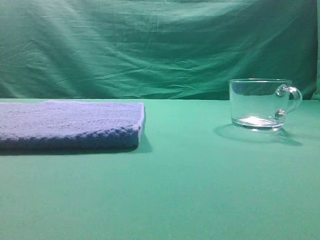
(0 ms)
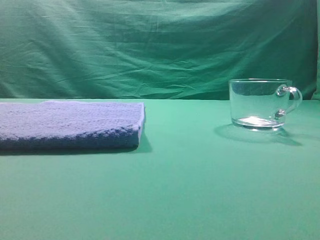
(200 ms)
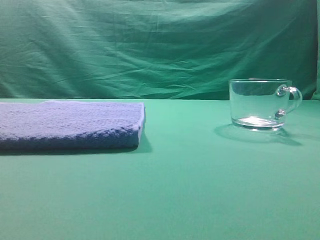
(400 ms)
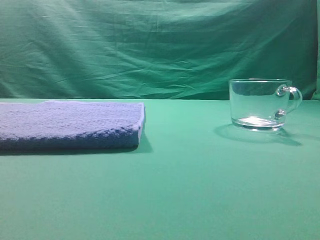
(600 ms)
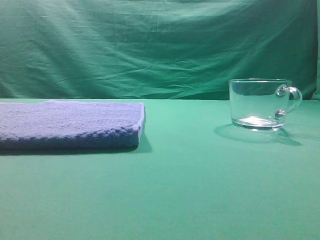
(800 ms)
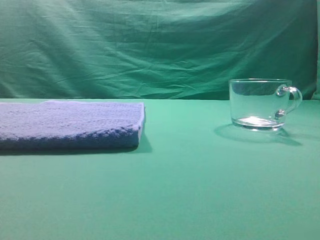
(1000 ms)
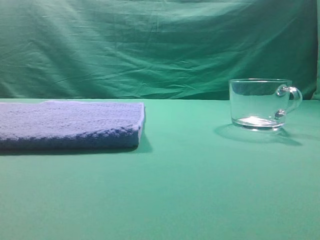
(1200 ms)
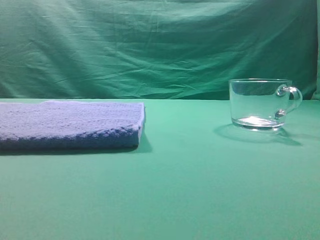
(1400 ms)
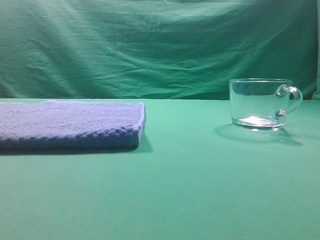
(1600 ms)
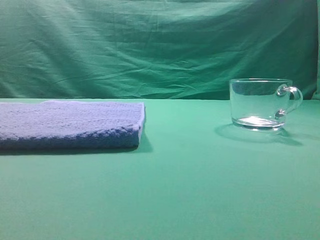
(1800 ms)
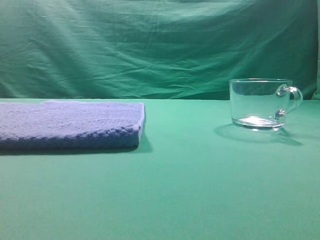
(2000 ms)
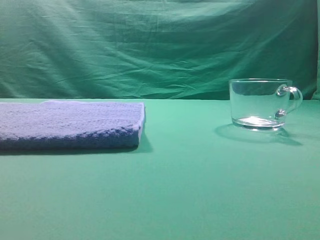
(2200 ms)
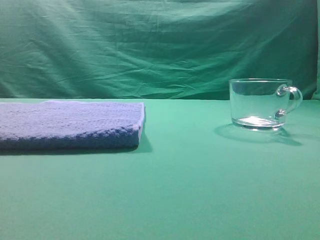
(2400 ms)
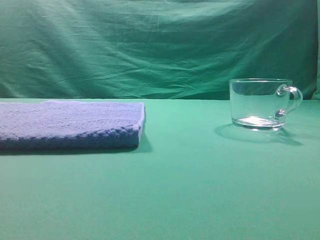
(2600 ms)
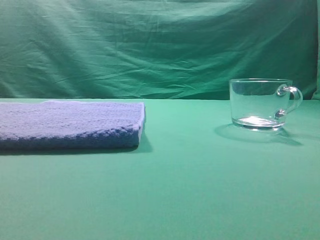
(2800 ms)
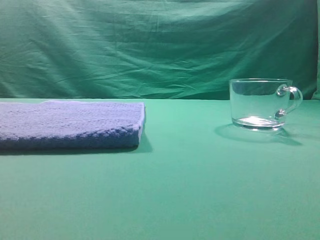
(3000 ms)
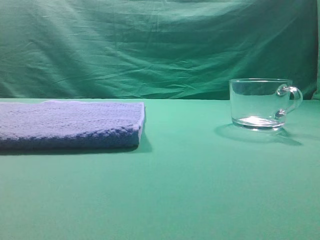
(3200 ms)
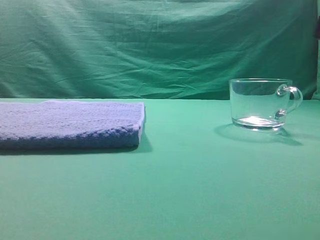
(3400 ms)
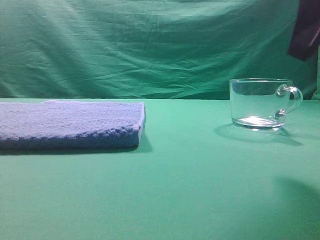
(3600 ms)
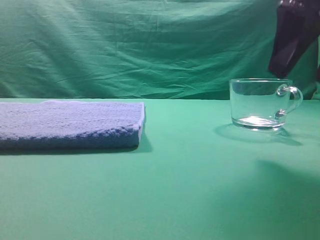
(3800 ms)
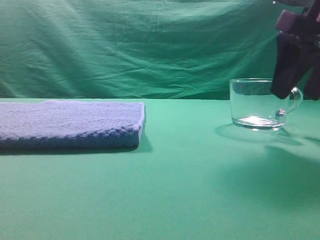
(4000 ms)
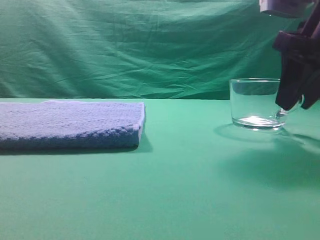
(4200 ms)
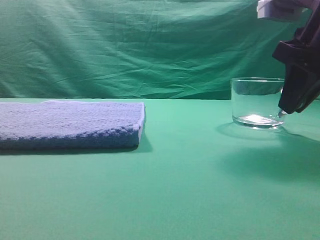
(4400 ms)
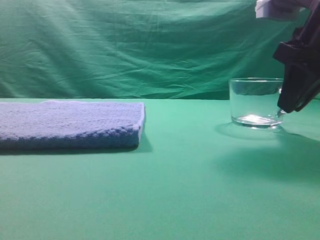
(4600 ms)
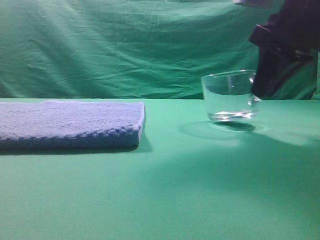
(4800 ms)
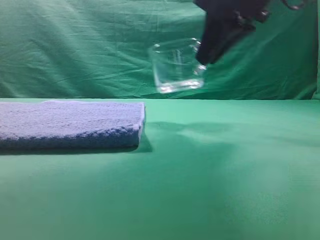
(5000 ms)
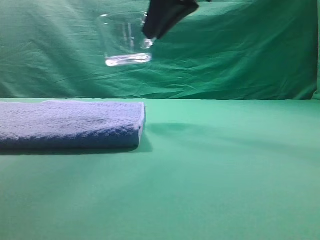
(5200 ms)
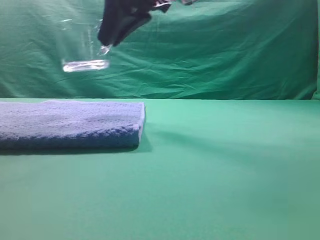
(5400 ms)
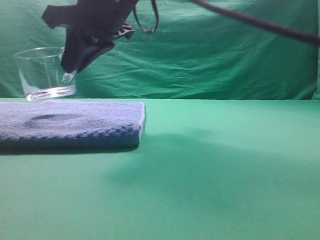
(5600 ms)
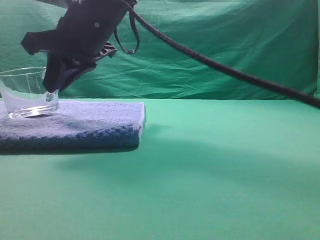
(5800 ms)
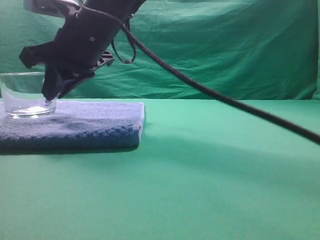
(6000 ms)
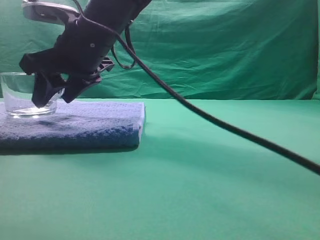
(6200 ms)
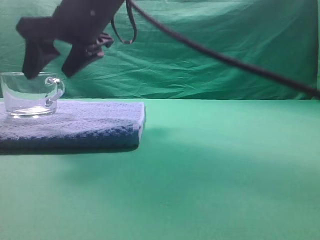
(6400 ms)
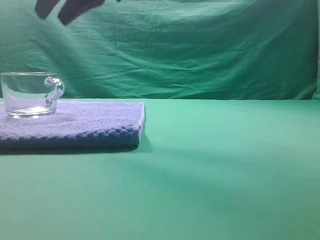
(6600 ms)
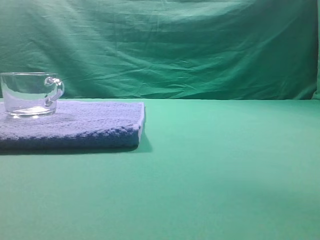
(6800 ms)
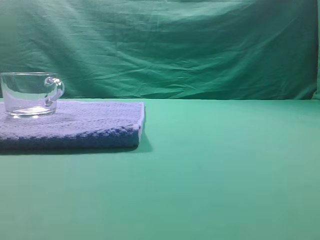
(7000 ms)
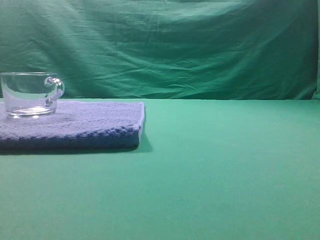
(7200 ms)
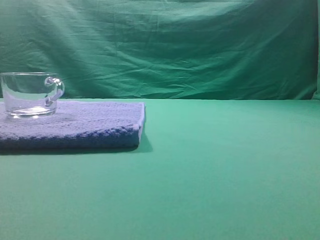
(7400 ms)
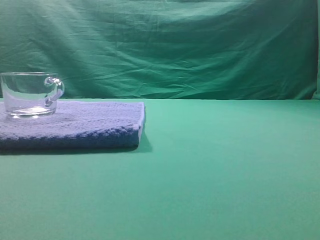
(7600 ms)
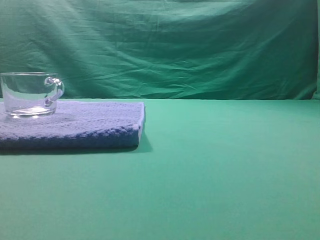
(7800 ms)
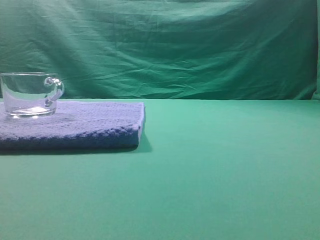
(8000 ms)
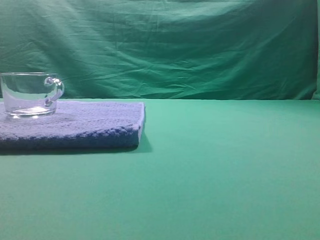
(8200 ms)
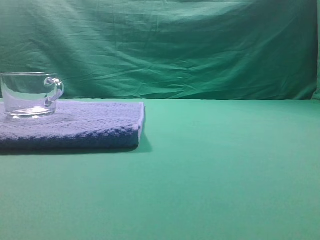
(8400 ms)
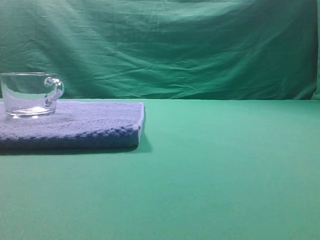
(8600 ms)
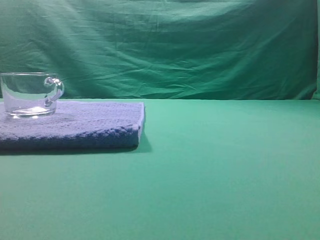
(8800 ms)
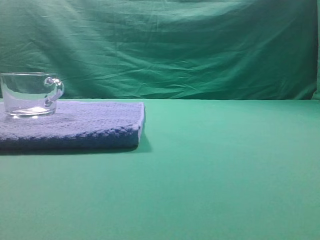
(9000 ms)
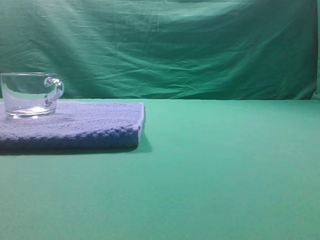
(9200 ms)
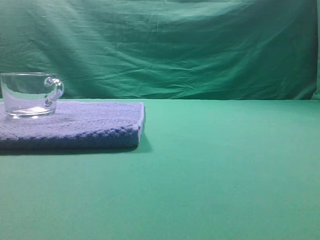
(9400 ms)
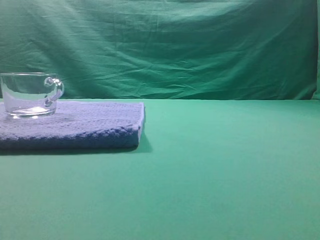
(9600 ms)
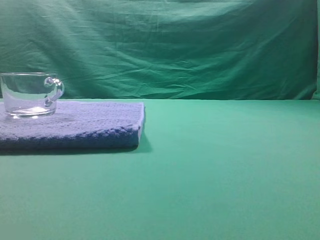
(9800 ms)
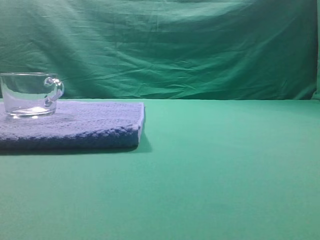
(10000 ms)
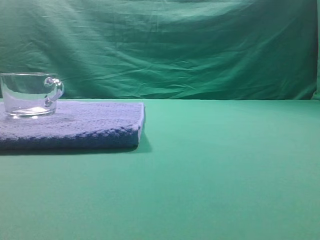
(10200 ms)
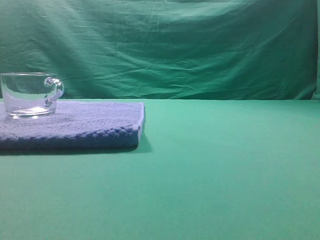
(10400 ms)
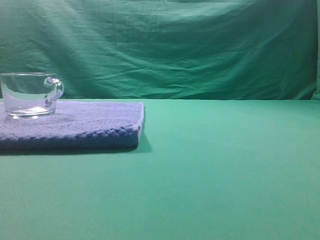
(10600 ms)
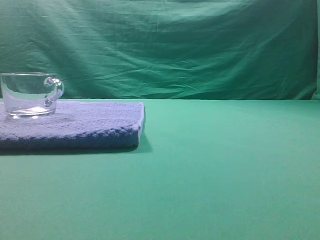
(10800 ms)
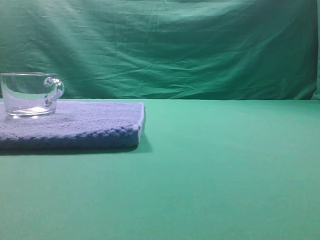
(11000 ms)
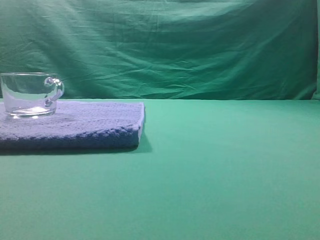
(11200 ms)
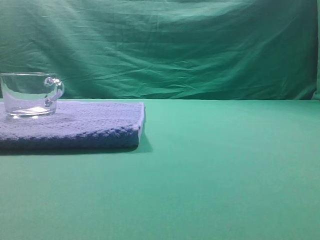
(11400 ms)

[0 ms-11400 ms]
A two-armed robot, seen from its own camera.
Task of the whole recording: grasp the transparent glass cup and place it within the blue towel.
Step, 0 ms to 4800 ms: Grasp the transparent glass cup.
Step, 5000 ms to 6200 ms: Place the glass cup on the blue zone.

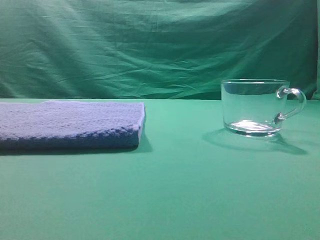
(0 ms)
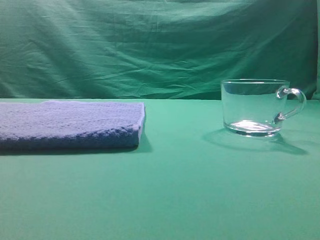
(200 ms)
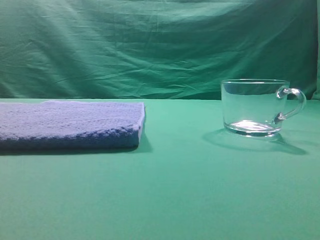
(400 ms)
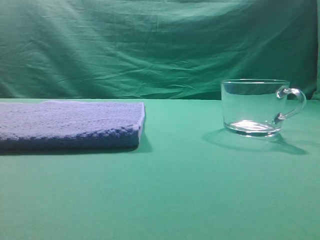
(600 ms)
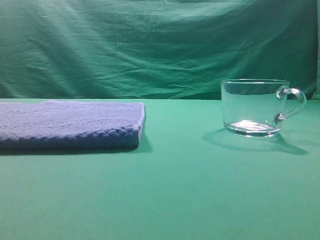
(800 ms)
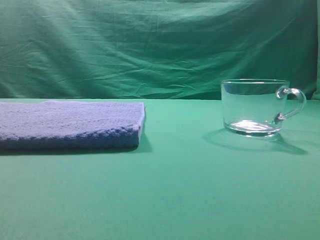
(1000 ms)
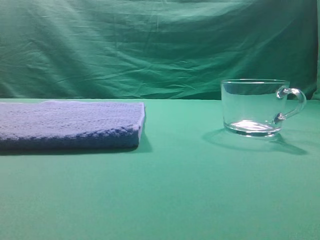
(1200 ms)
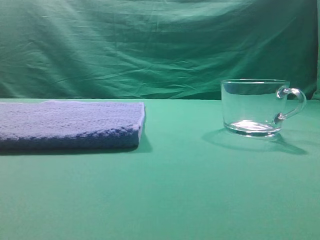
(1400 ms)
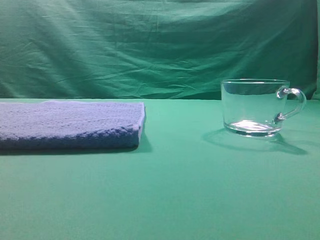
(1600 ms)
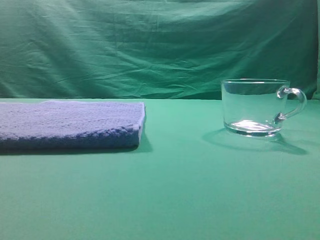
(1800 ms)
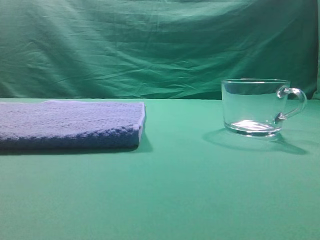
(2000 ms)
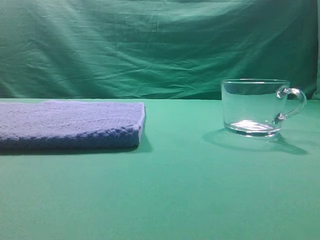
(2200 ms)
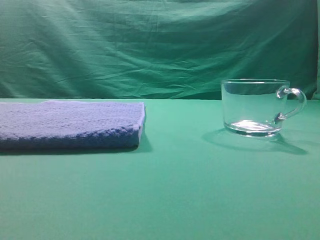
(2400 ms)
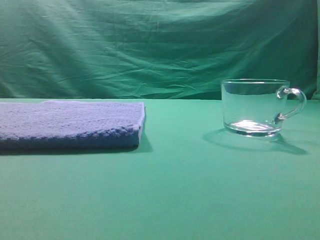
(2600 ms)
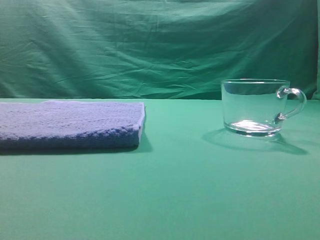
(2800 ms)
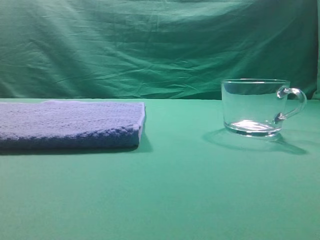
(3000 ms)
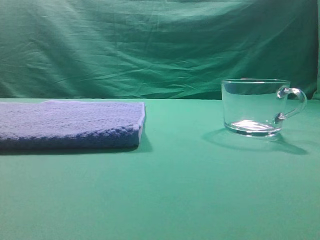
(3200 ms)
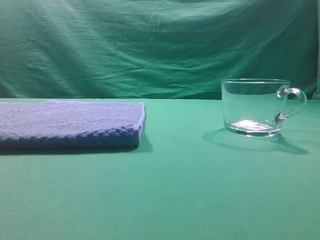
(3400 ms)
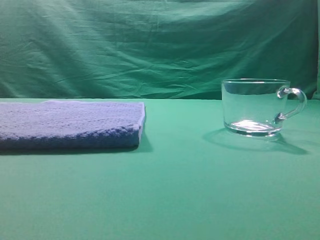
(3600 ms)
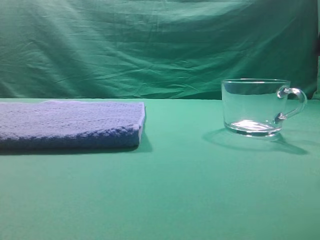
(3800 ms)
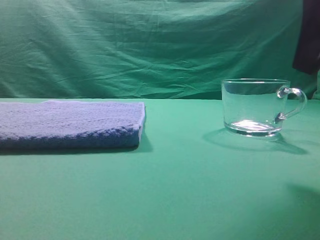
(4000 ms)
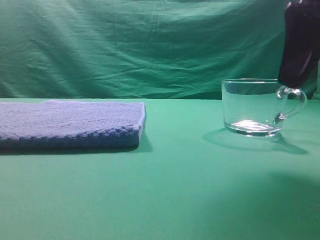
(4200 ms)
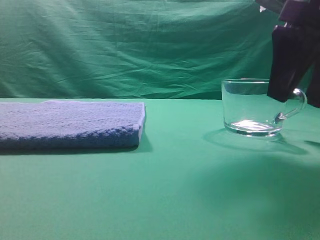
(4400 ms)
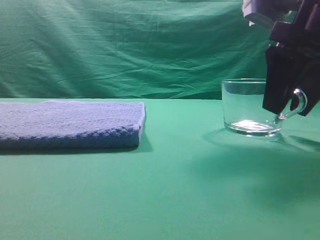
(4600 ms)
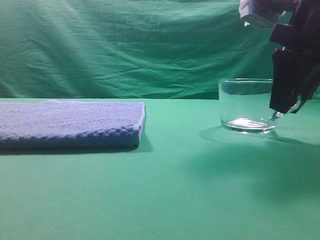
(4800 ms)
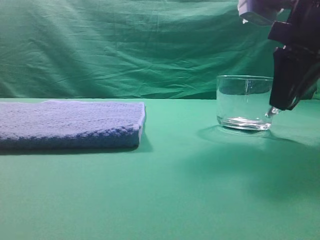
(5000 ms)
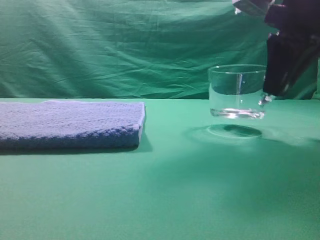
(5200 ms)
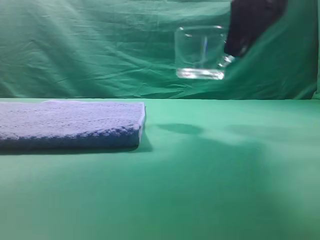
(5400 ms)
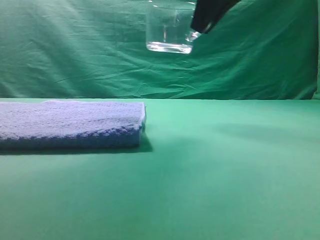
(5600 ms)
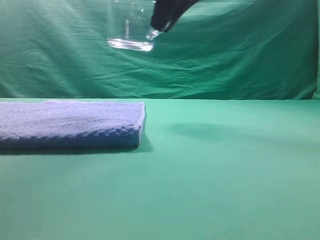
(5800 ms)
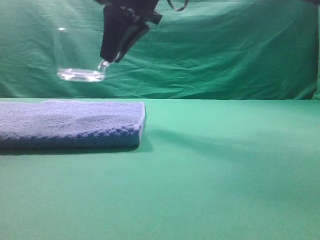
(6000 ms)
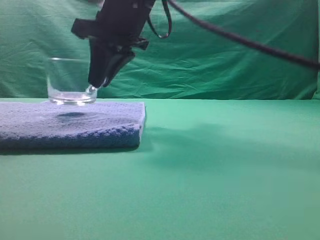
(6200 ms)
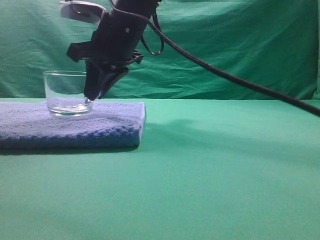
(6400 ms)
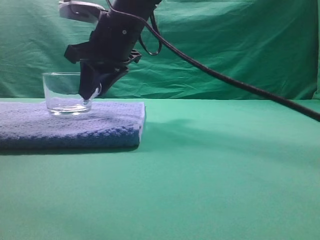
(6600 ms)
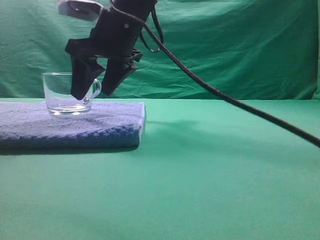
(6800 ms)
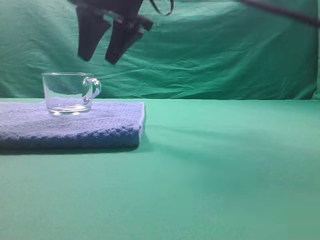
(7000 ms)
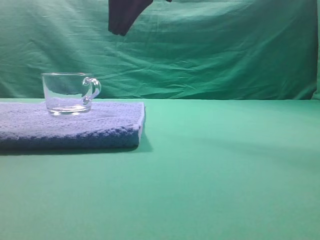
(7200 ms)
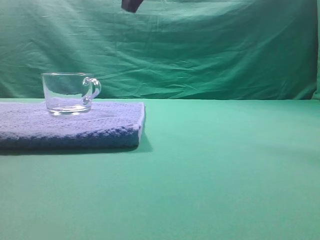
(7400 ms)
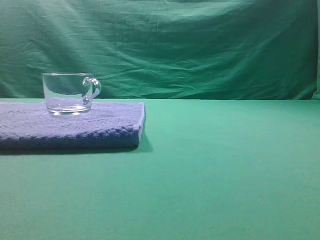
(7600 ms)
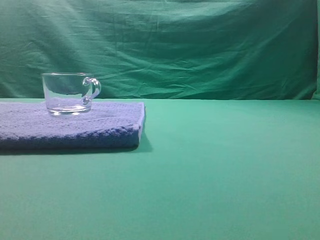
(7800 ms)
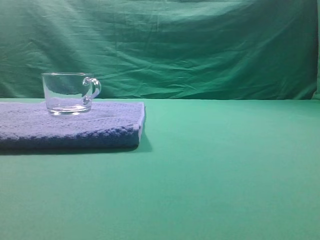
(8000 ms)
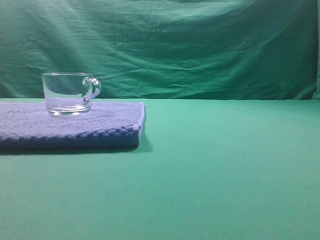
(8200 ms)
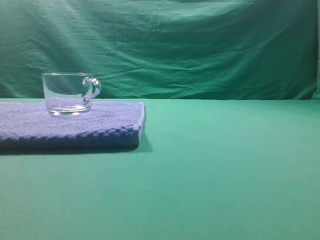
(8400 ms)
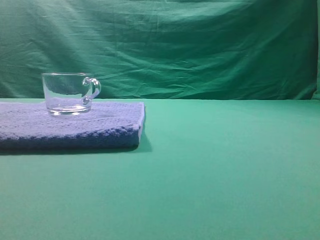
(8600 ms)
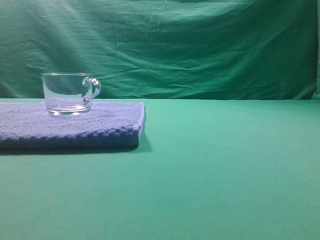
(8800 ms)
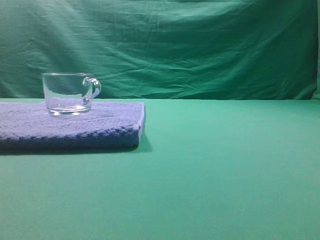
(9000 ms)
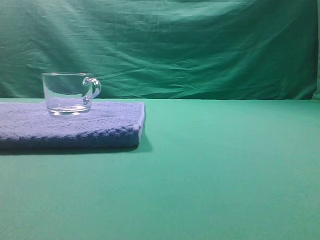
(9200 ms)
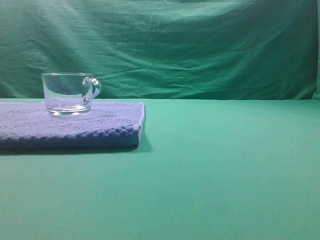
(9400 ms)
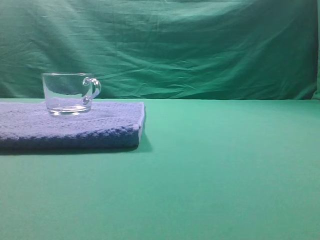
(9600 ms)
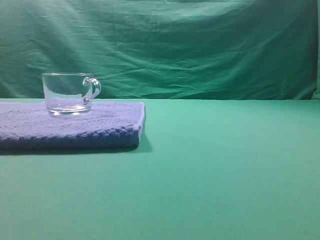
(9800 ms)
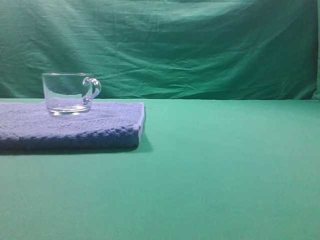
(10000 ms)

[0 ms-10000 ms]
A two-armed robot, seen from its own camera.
Task of the whole recording: grasp the transparent glass cup and place it within the blue towel.
Step, 0 ms to 5200 ms: Grasp the transparent glass cup.
Step, 5400 ms to 6800 ms: Place the glass cup on the blue zone.

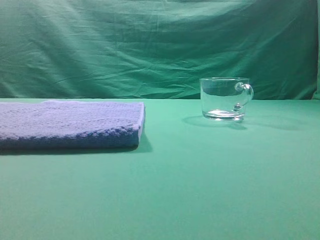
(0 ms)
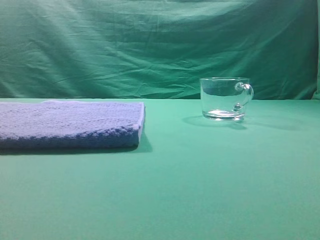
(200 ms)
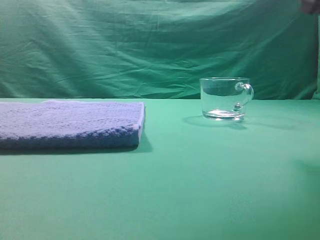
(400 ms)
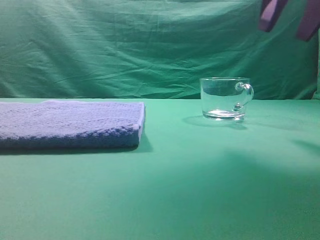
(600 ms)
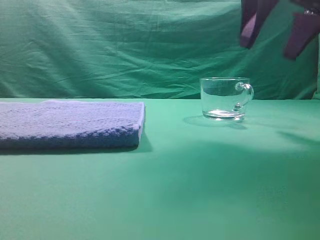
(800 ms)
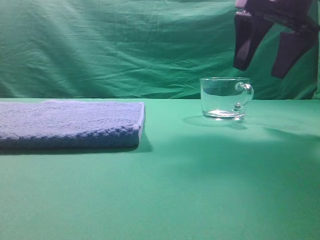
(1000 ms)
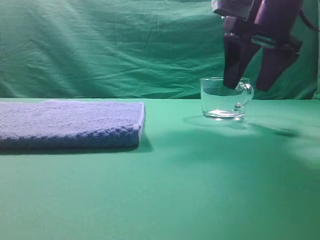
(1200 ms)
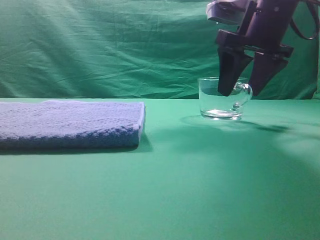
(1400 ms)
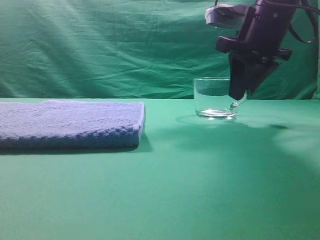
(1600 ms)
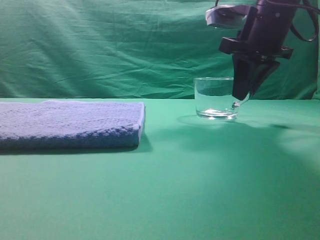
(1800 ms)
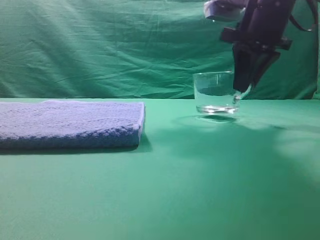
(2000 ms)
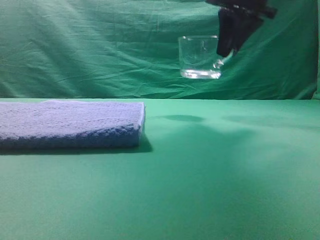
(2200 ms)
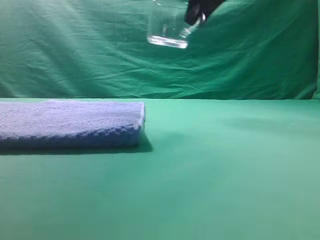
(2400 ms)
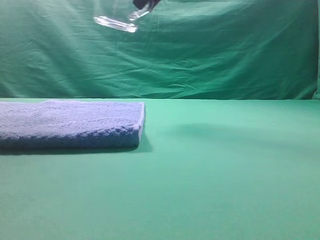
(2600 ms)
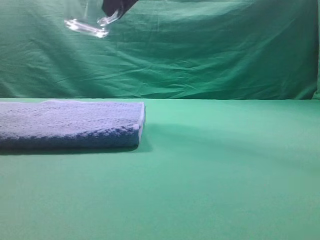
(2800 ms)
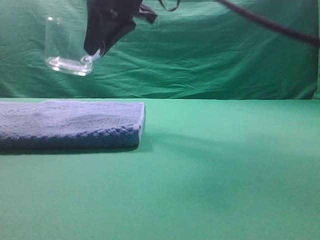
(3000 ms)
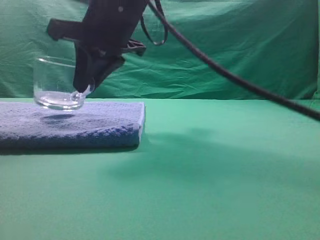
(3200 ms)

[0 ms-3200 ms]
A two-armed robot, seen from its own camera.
Task of the whole recording: grasp the transparent glass cup and place it within the blue towel.
Step, 0 ms to 2000 ms: Grasp the transparent glass cup.
